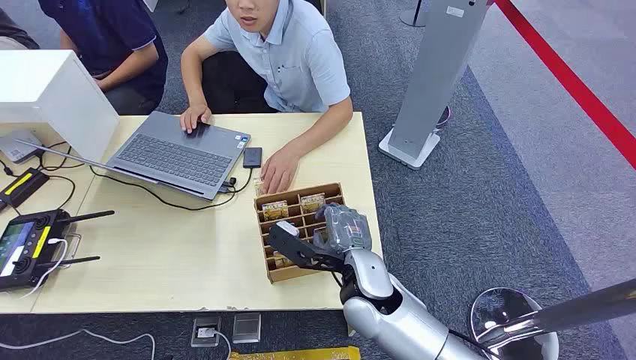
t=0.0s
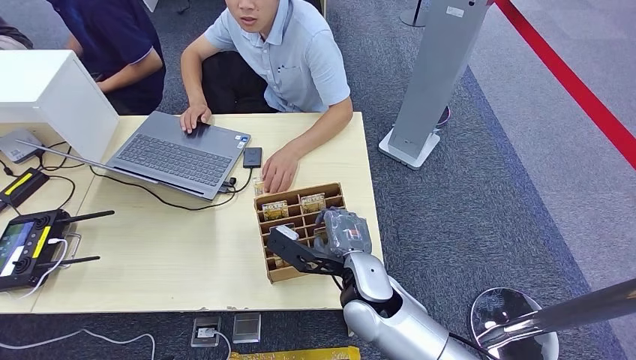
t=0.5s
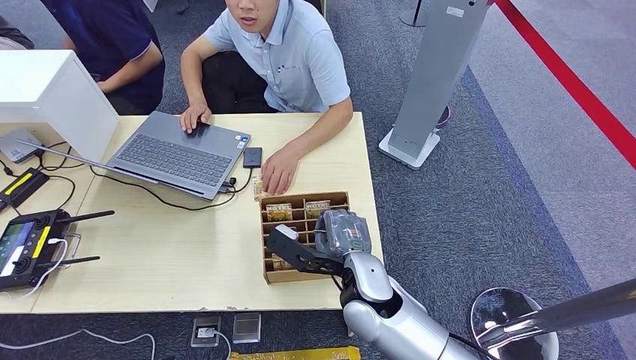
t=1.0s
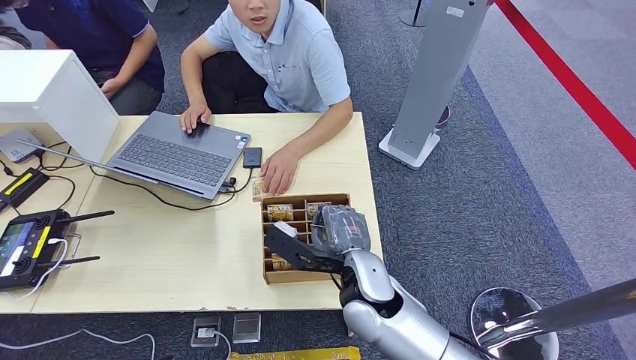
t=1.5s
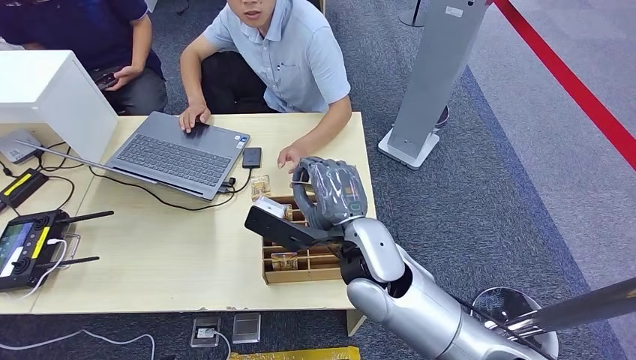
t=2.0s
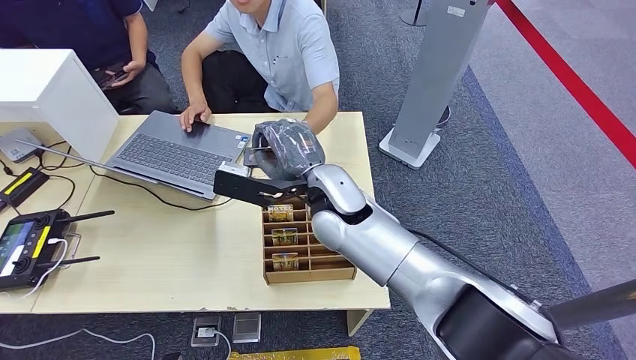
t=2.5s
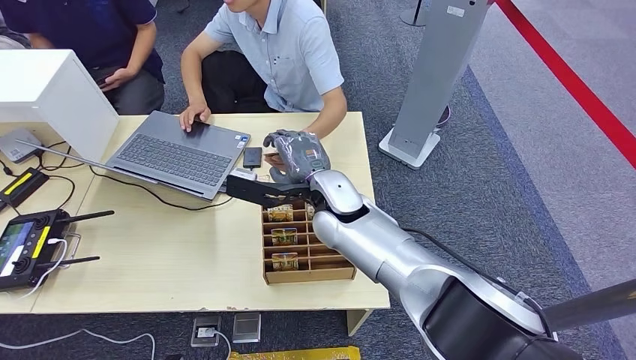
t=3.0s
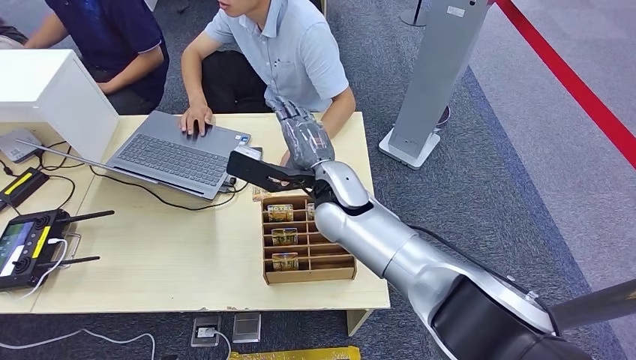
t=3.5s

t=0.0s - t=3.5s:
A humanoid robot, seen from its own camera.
Step, t=0.0s - t=2.0s: Pick up the key card from the card box.
Step, t=2.5s - t=3.5s: Hand the key card to the target.
t=2.0s - t=3.5s: The right hand travels forward by roughly 10 cm.
